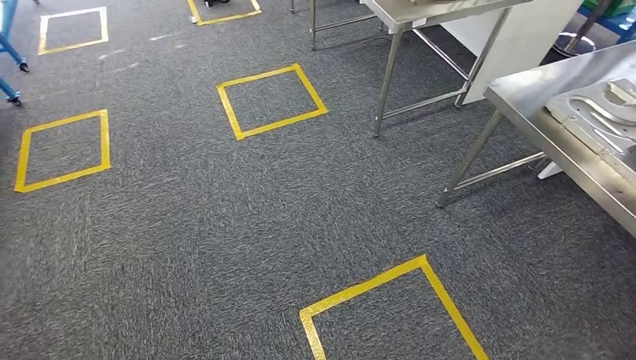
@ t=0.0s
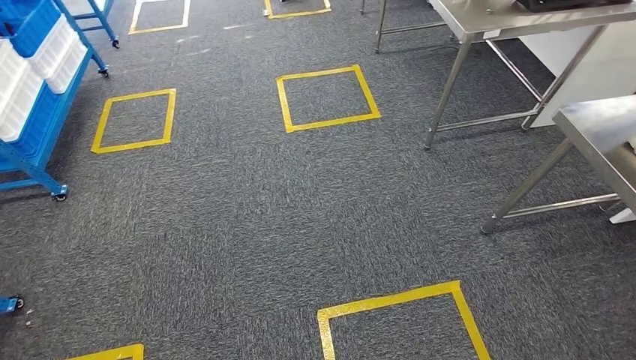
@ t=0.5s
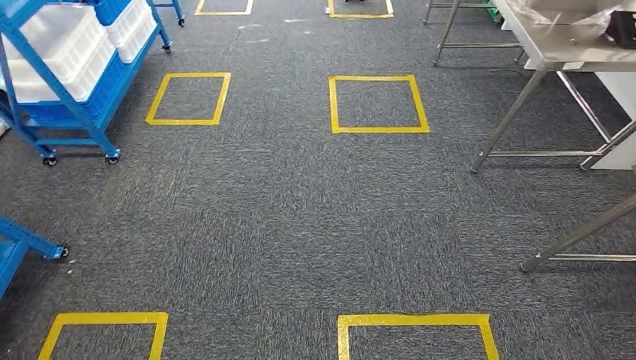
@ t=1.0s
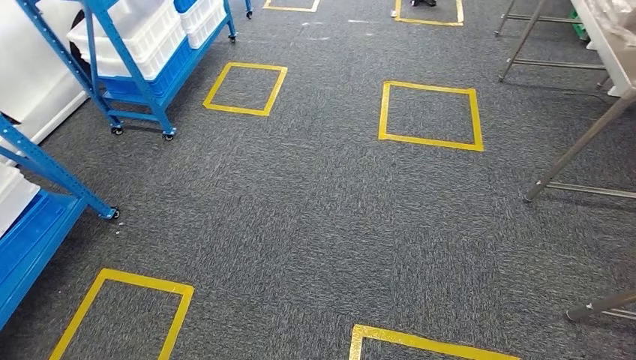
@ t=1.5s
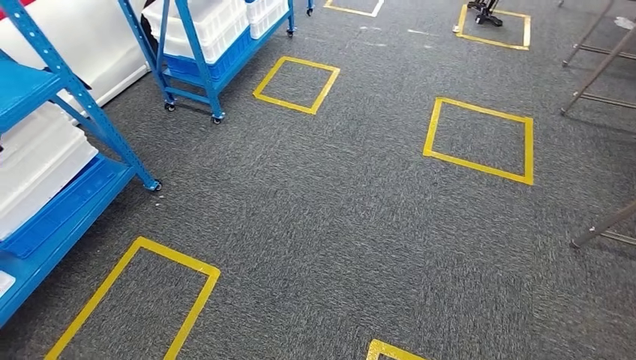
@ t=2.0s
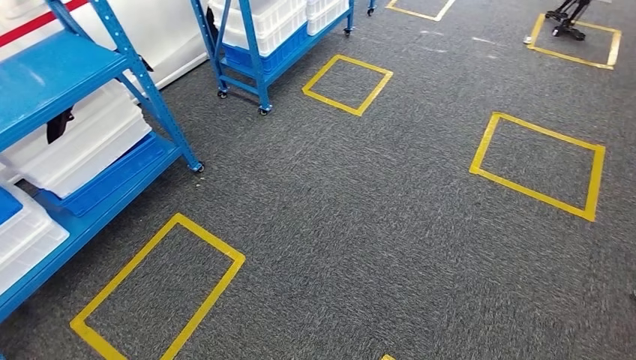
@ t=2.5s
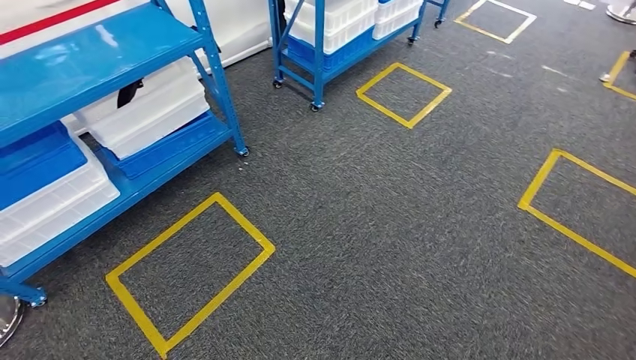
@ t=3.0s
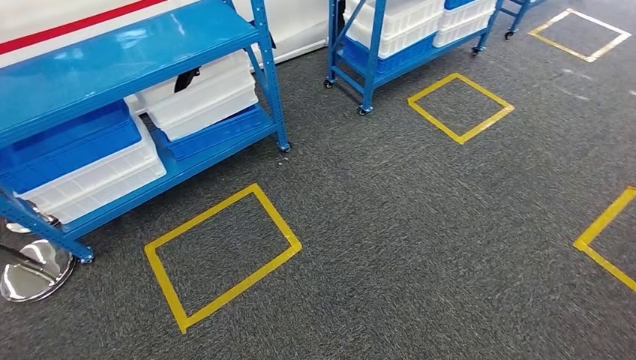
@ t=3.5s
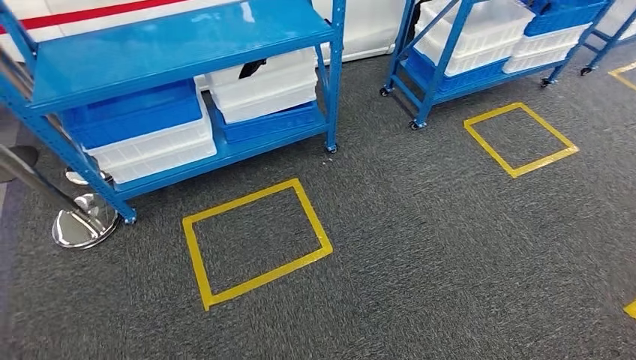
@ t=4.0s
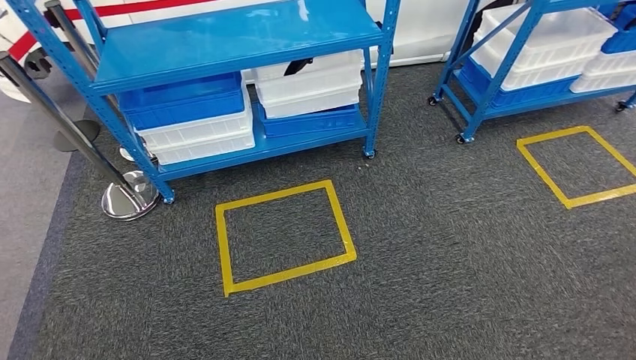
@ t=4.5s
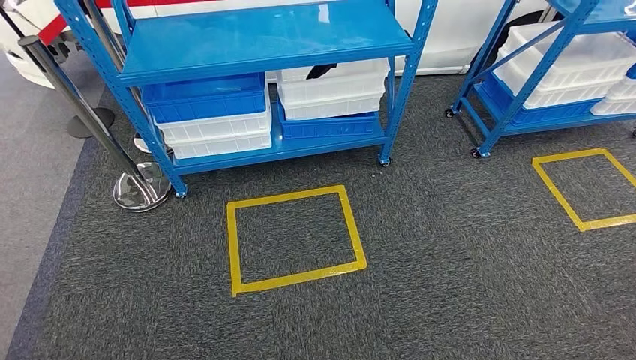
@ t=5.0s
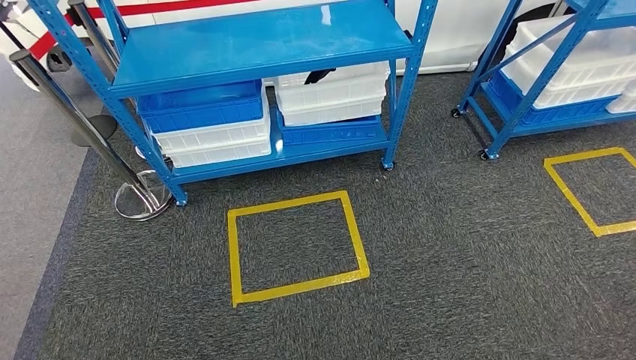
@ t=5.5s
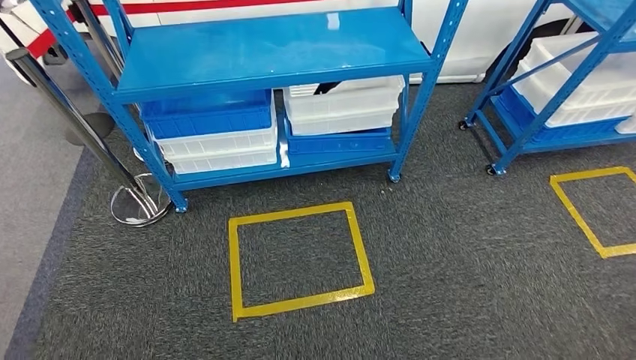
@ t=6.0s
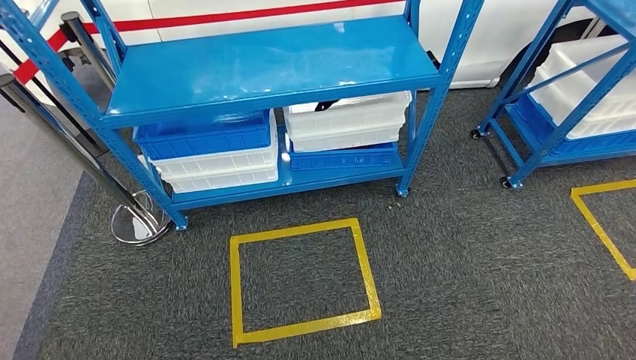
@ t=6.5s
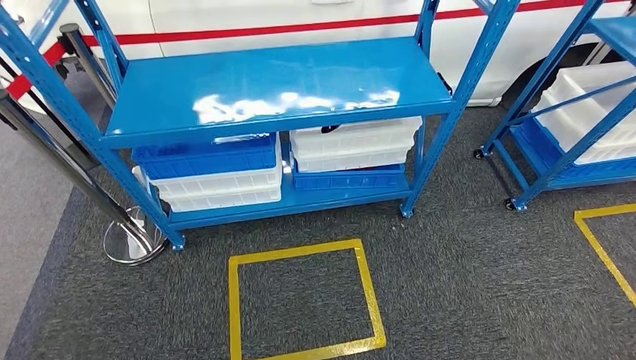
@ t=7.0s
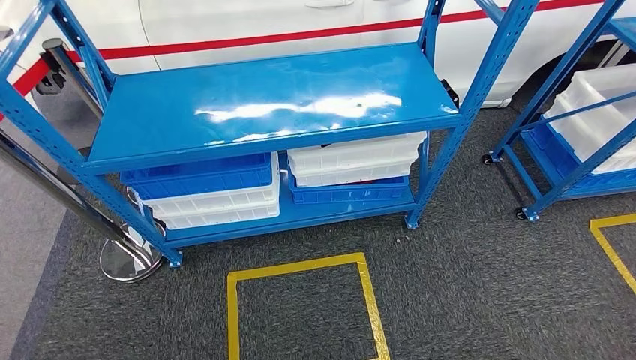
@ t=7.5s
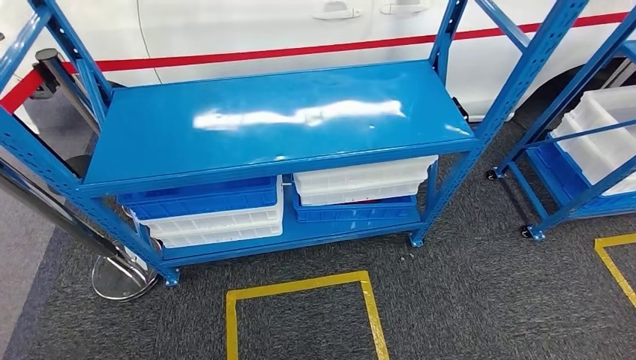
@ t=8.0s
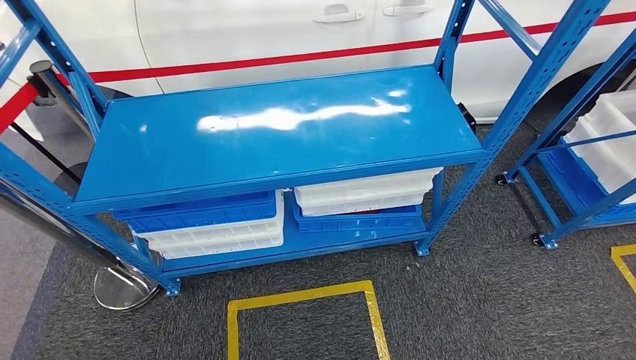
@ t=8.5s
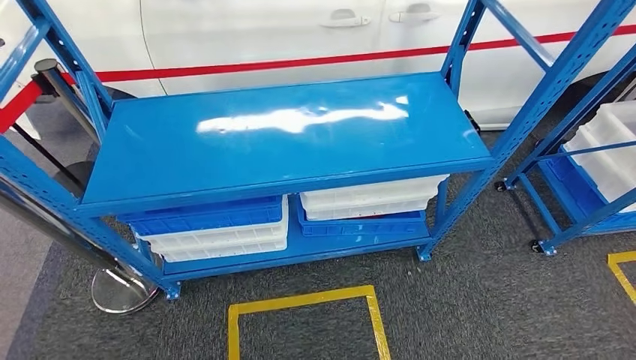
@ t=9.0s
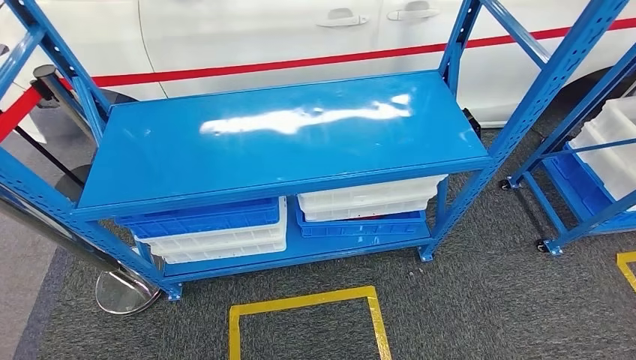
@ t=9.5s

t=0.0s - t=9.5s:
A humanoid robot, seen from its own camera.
Step, t=0.0s - t=9.5s: Move to the initial position of the shelf.
